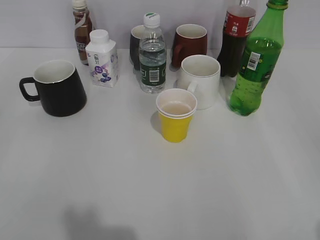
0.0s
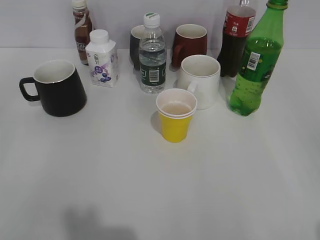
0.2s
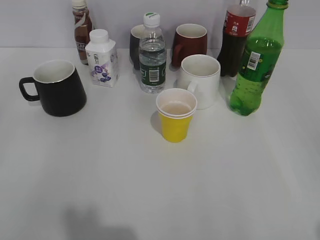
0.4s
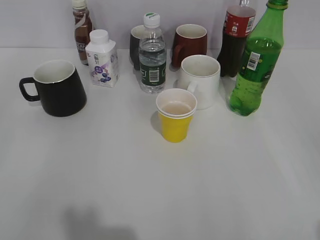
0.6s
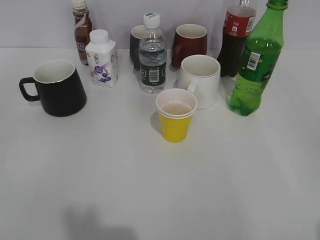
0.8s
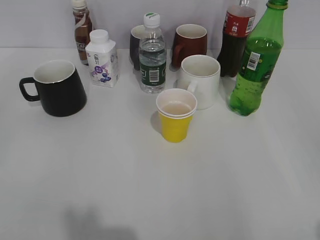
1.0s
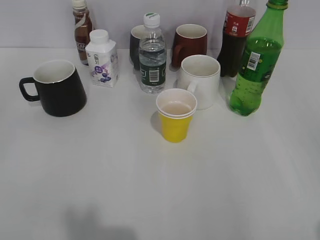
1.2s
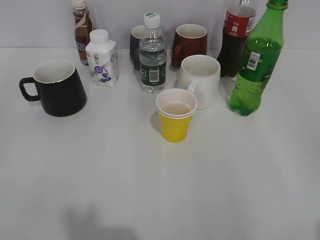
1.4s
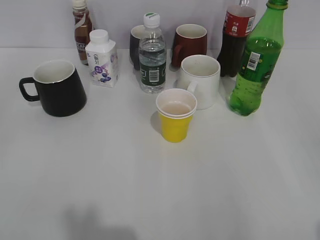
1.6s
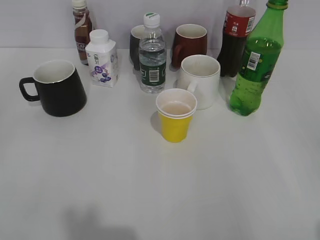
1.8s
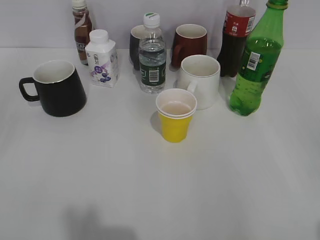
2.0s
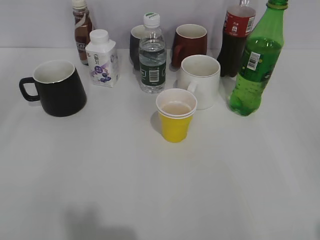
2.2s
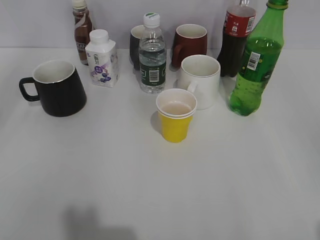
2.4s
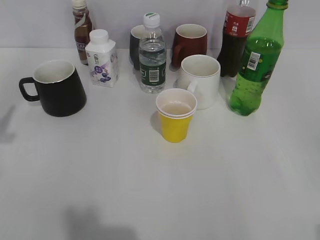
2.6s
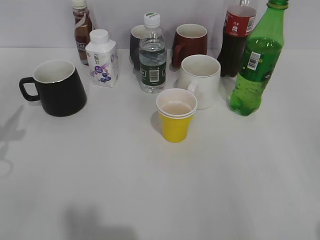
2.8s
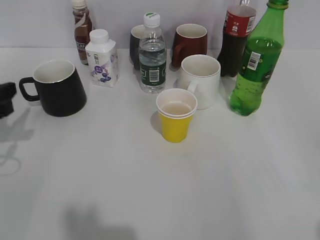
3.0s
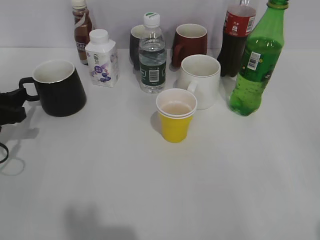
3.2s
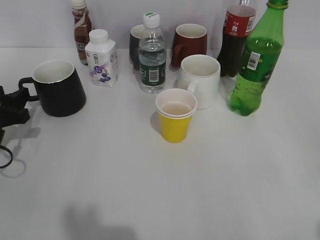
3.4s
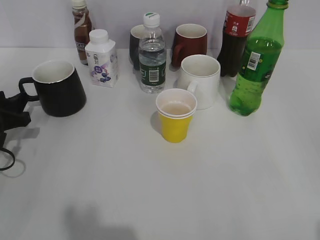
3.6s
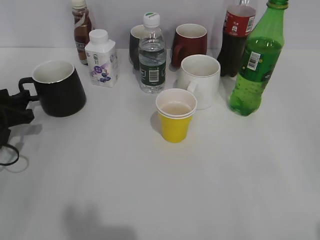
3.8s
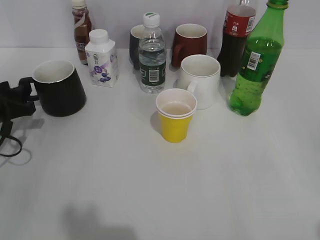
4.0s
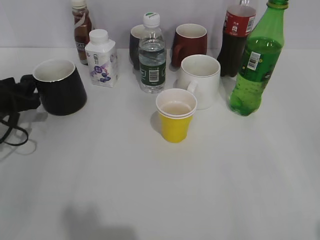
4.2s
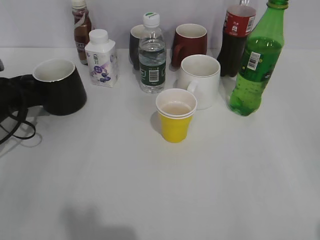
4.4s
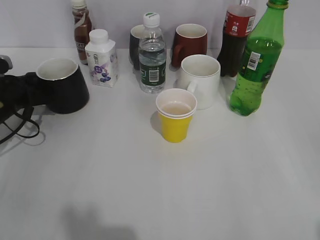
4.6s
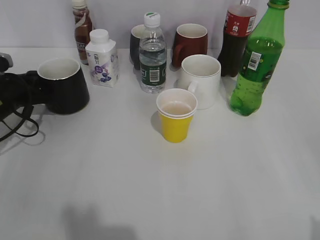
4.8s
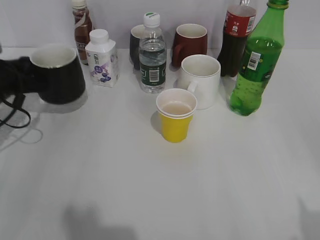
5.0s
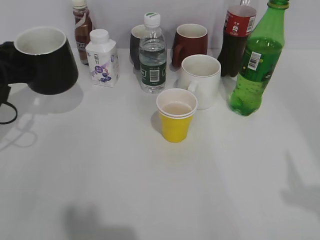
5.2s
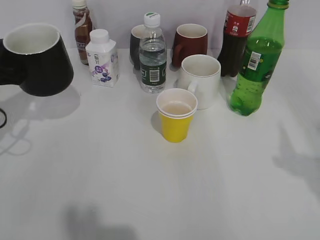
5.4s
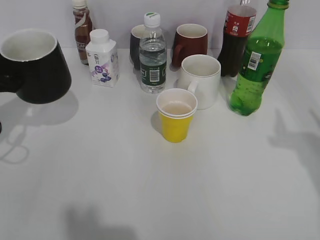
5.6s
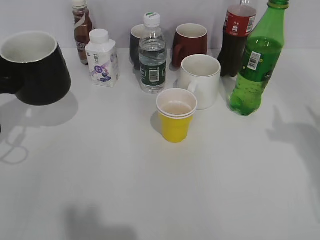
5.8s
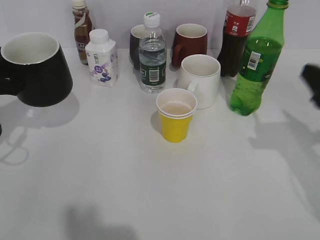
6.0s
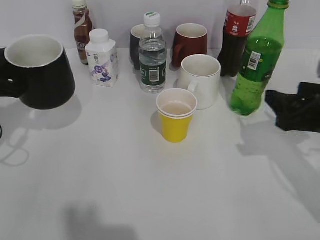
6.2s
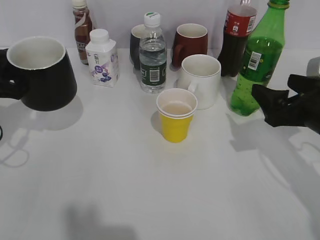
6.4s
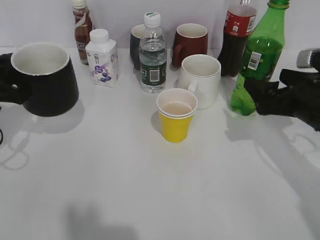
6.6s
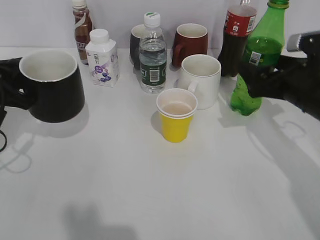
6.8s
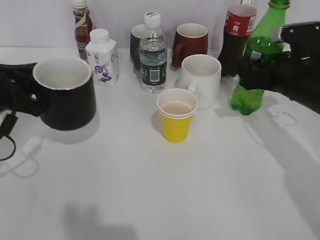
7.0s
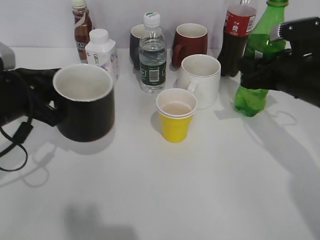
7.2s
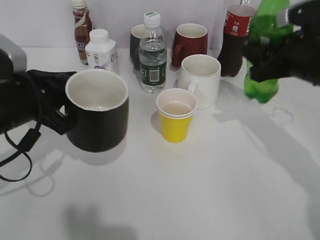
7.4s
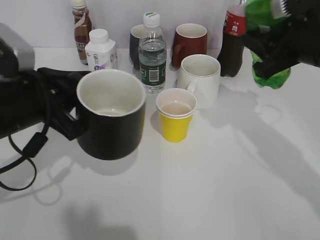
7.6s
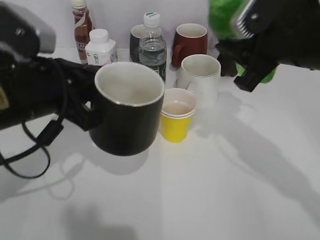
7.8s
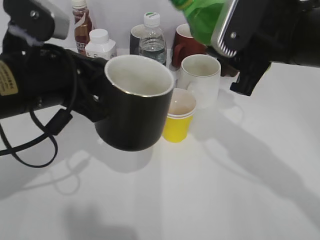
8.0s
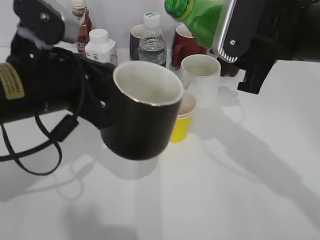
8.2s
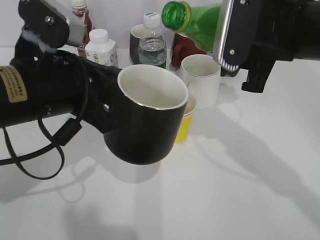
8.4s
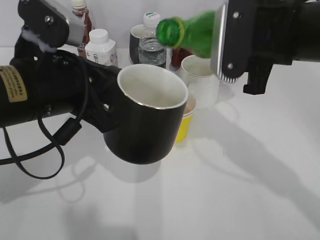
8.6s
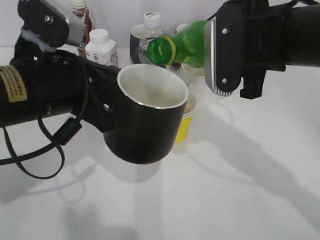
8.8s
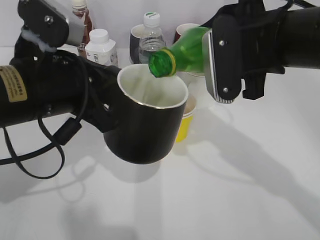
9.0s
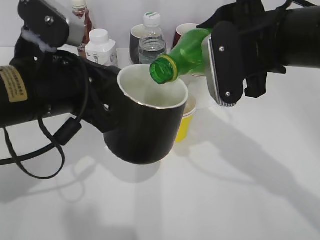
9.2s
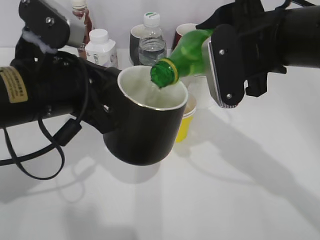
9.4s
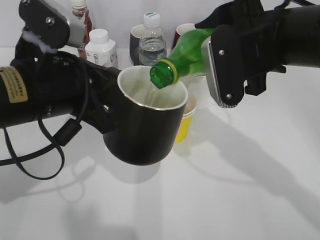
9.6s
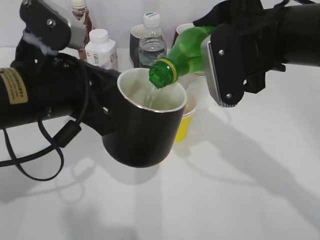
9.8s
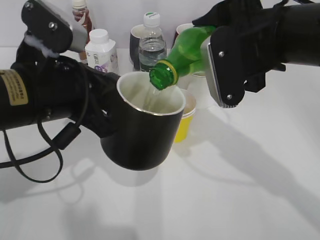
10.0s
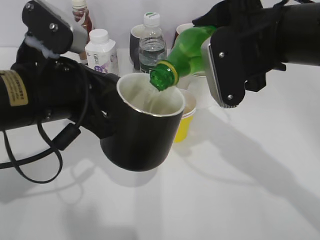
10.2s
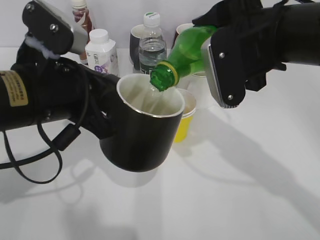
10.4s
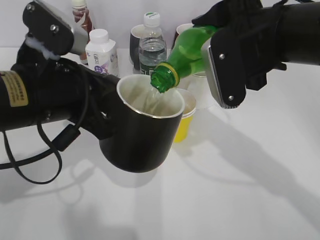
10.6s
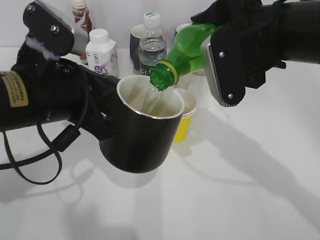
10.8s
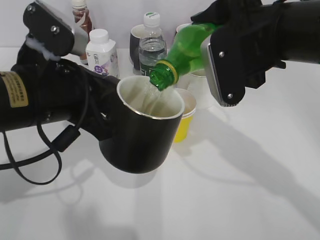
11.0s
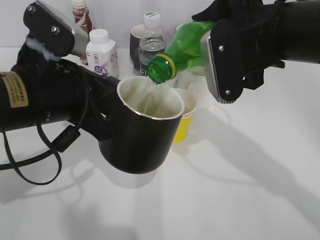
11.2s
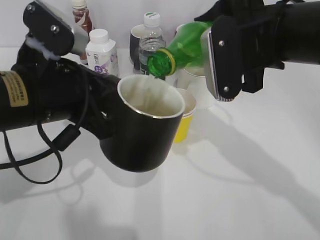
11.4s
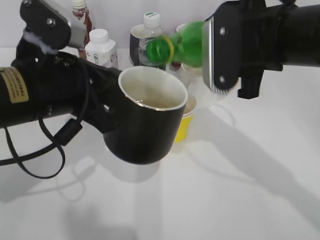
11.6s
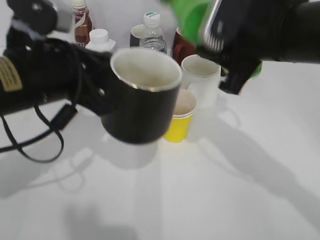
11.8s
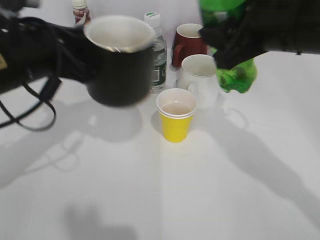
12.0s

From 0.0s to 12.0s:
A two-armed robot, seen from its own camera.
Step, from 1.8s to 4.6s: Grasp the black cup with left gripper.
Step, from 4.8s to 5.4s: Lift the black cup with left gripper.
Step, from 5.6s to 7.0s: Grasp the bottle with sprite with right gripper.
Step, from 7.4s to 11.6s: Pour the sprite from bottle to cup with right gripper.
From 1.6s to 3.0s: The left gripper shifts about 25 cm forward.
From 3.0s to 4.4s: The left gripper is displaced forward and downward by approximately 10 cm.
From 4.4s to 6.0s: The right gripper goes about 20 cm forward; the left gripper shifts about 10 cm upward and backward, and closes its fingers.
From 6.0s to 7.6s: The left gripper is displaced to the right and backward by approximately 10 cm. Meanwhile the right gripper goes about 10 cm to the left and forward, and closes.
From 7.6s to 9.0s: The right gripper shifts roughly 5 cm to the left, while the left gripper shifts by about 5 cm.
From 9.0s to 10.4s: The grippers move only a little.
From 10.4s to 12.0s: The left gripper moves approximately 5 cm.

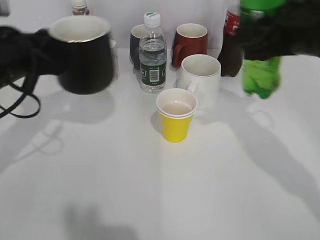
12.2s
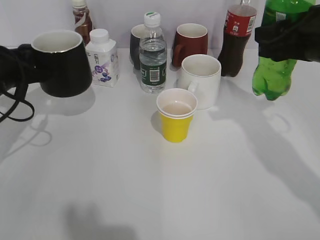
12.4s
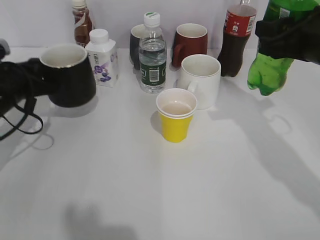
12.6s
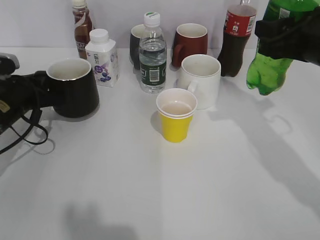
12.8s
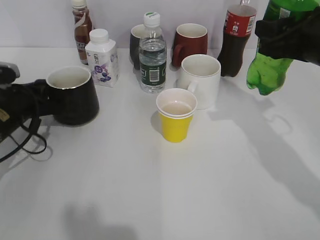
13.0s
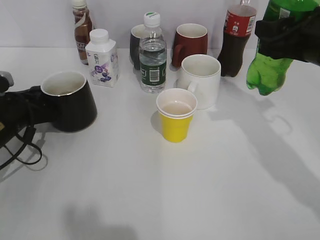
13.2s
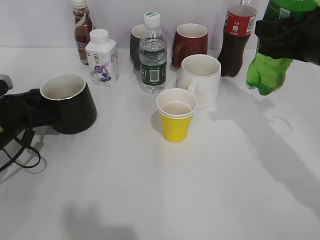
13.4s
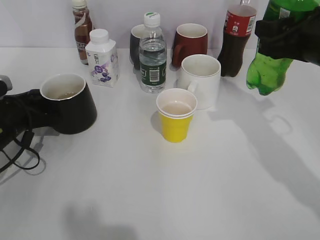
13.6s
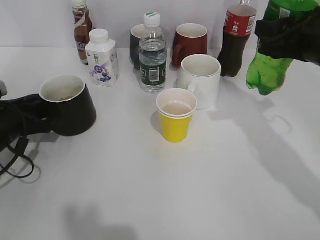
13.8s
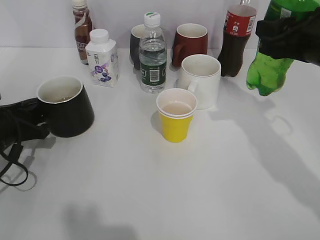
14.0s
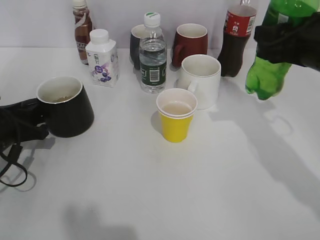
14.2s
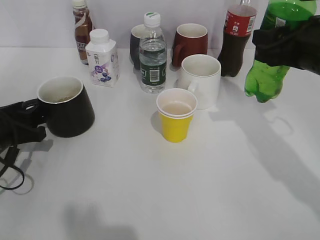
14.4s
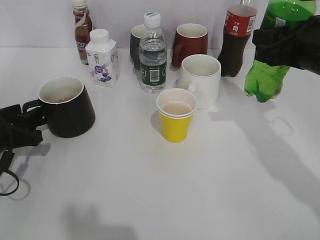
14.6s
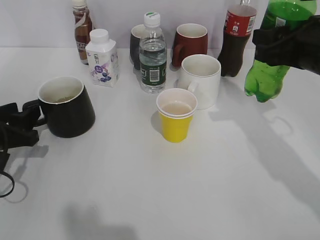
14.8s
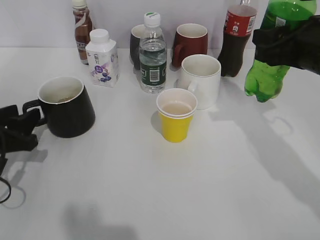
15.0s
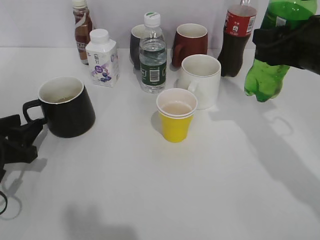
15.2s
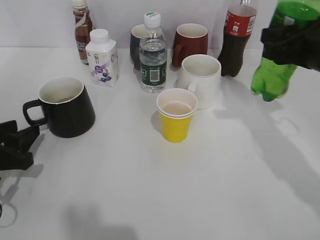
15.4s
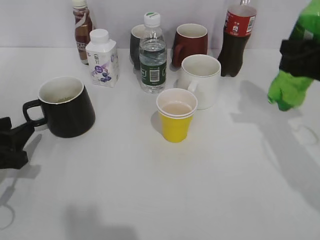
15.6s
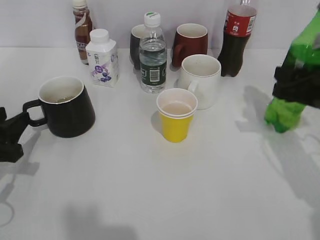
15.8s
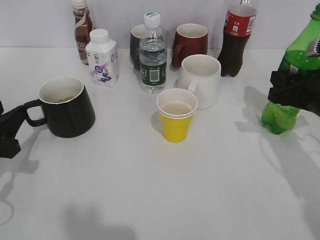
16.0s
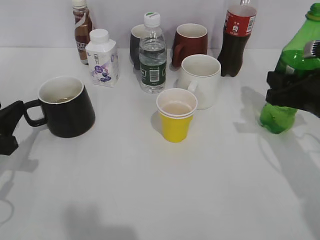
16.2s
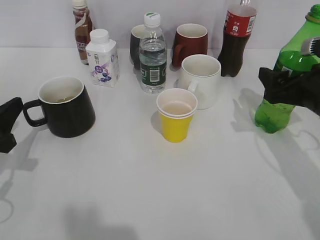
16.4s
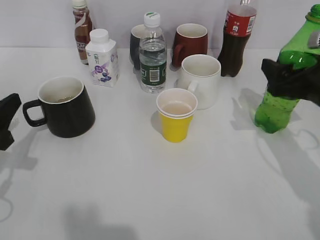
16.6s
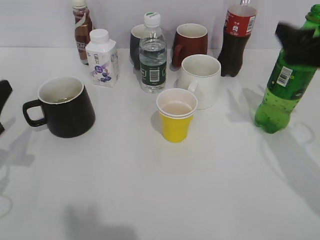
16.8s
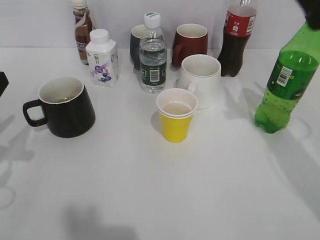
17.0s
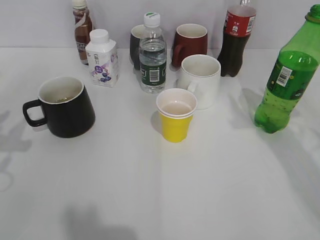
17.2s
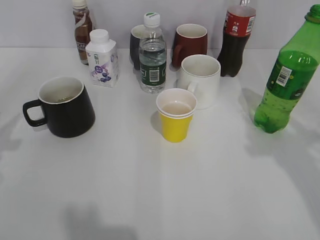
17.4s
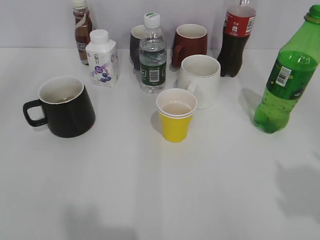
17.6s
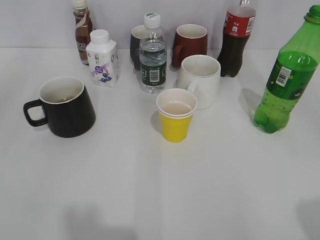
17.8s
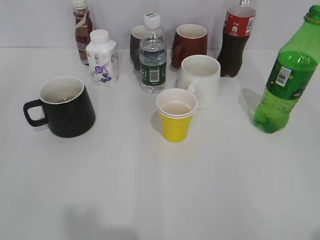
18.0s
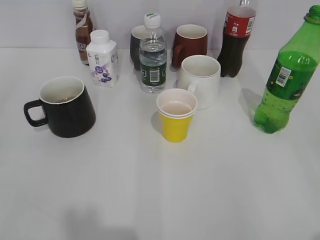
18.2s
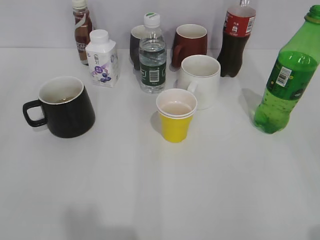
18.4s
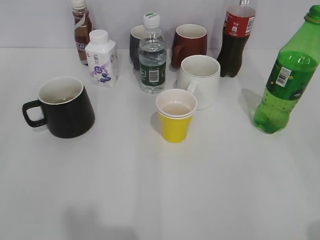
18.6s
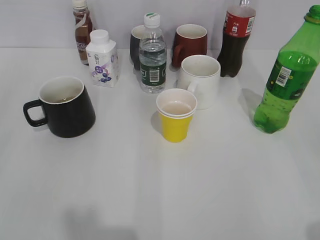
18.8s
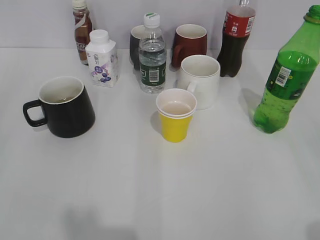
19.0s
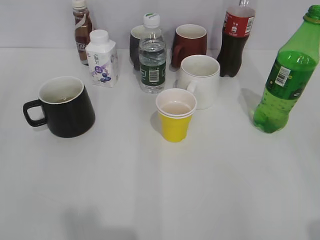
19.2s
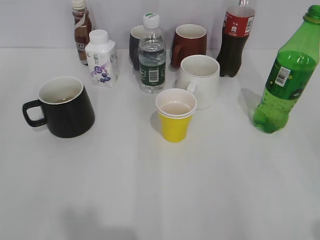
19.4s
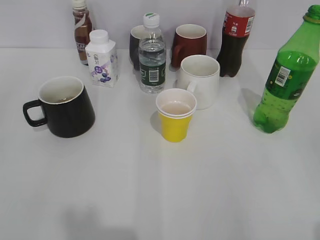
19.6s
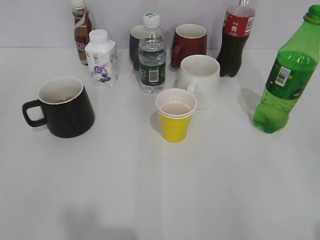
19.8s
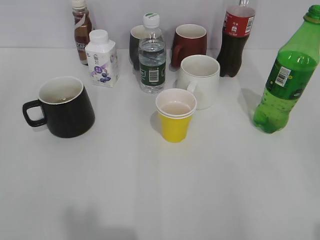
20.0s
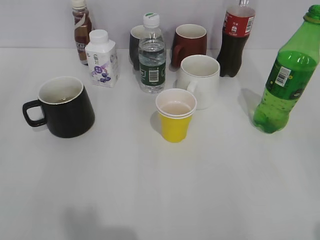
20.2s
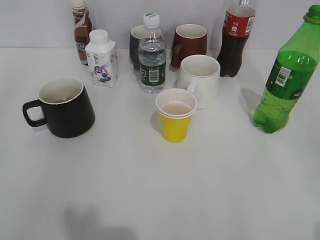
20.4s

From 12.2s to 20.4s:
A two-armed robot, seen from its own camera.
Step, from 12.2s to 14.6s: Place the black cup on the table with left gripper.
Step, from 14.8s to 16.6s: Place the sprite bottle on the table with right gripper.
From 12.2s to 13.8s: The left gripper shifts approximately 15 cm downward, and opens.
From 13.8s to 15.4s: The left gripper goes some 5 cm backward.
From 15.4s to 17.2s: The right gripper heads upward and backward, covering about 10 cm, and opens; the left gripper is displaced upward by about 15 cm.

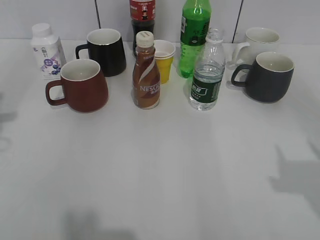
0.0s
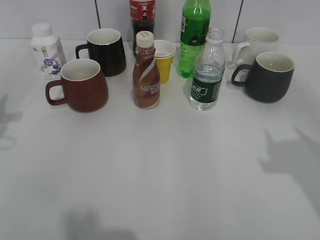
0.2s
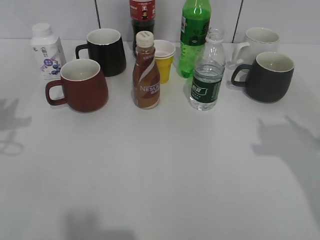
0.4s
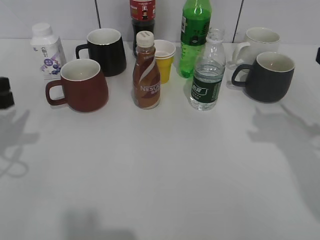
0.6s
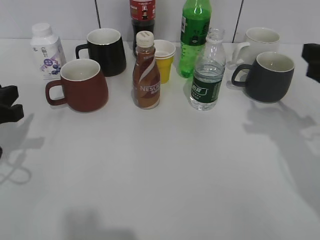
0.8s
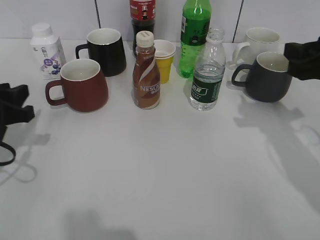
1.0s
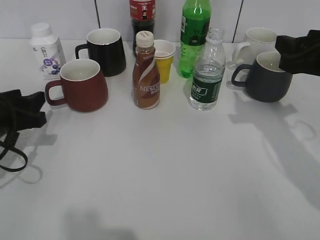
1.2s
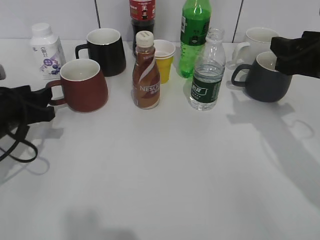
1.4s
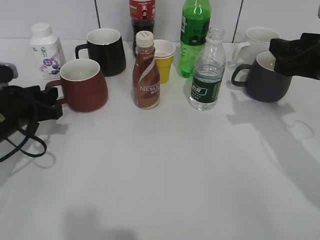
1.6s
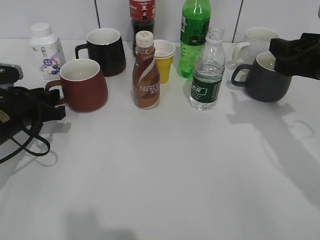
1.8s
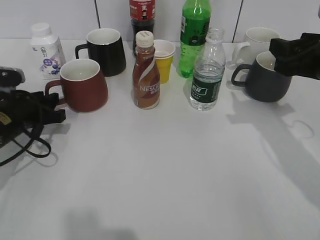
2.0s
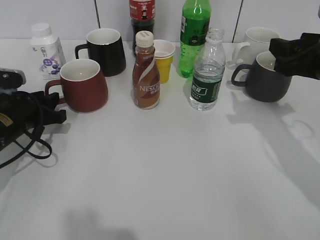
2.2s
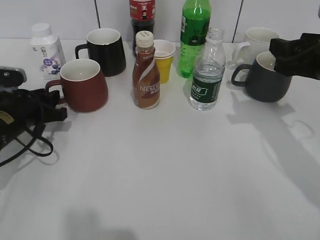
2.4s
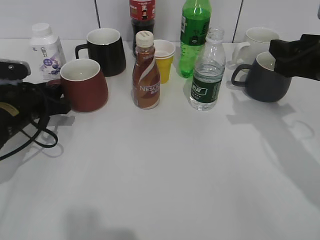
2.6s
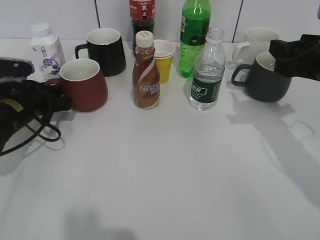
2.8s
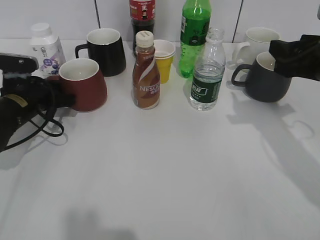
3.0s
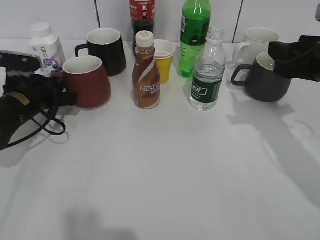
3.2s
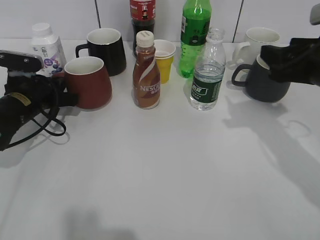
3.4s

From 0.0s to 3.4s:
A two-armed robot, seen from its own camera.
Step, from 0.0s to 3.4s: Grasp the red cup with left gripper.
From 0.0s to 1.6s: The left gripper moves downward and to the right, some 15 cm, and opens, while the right gripper is displaced forward and downward by about 20 cm.
From 1.6s to 3.4s: The left gripper moves forward, approximately 5 cm, and closes.
